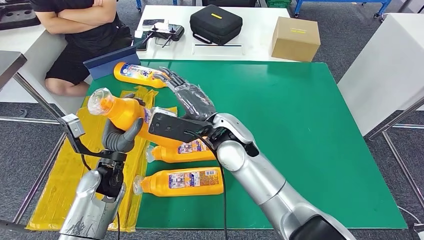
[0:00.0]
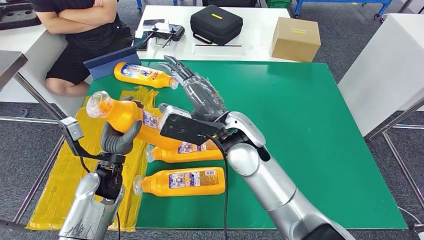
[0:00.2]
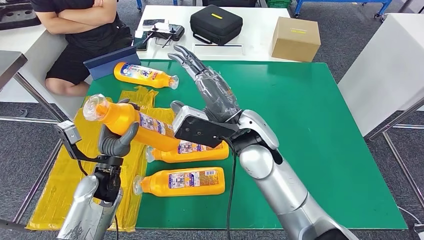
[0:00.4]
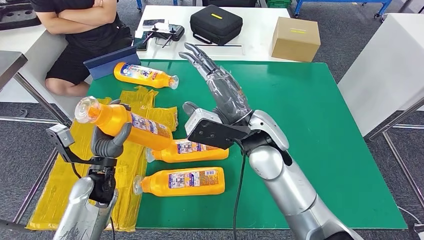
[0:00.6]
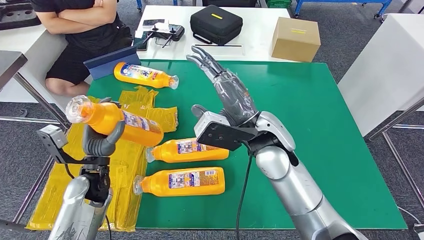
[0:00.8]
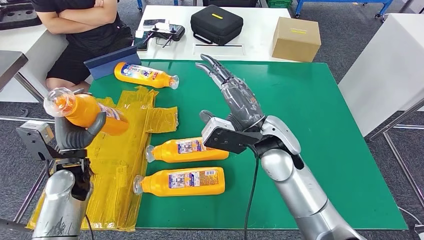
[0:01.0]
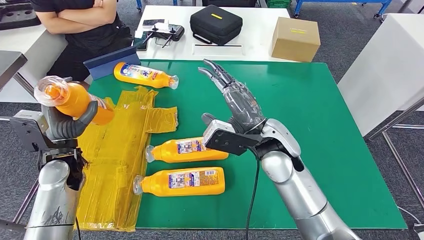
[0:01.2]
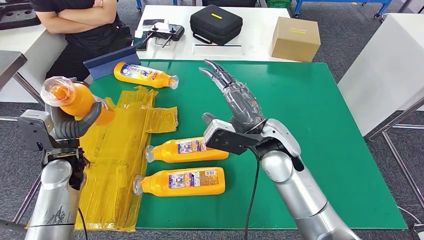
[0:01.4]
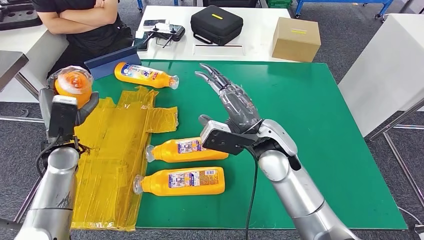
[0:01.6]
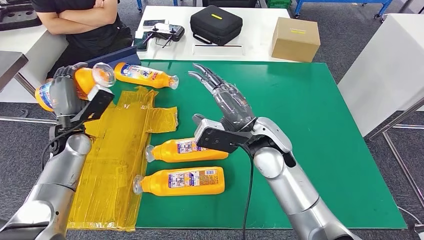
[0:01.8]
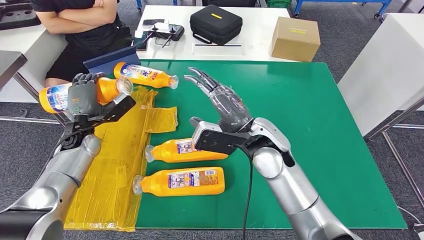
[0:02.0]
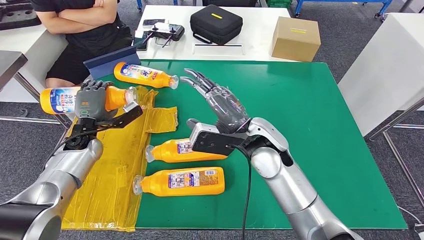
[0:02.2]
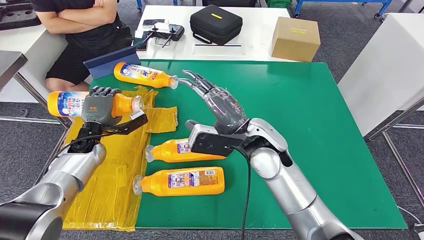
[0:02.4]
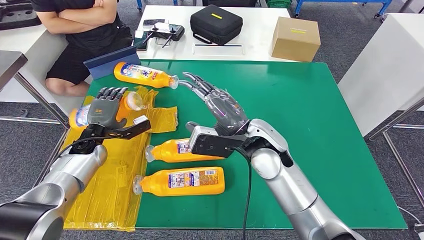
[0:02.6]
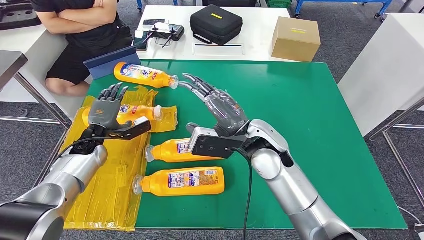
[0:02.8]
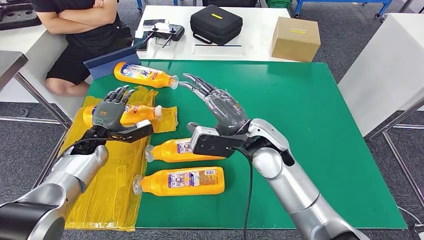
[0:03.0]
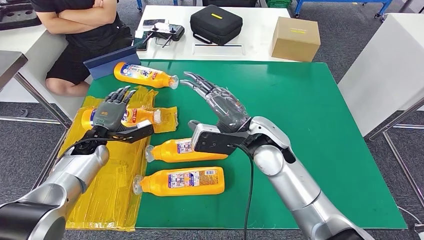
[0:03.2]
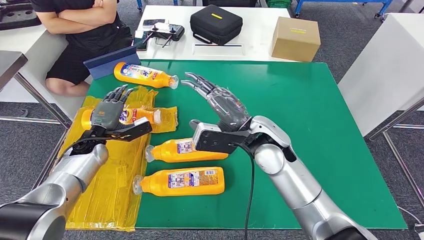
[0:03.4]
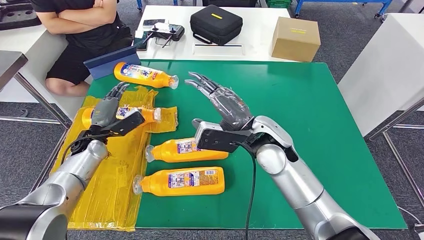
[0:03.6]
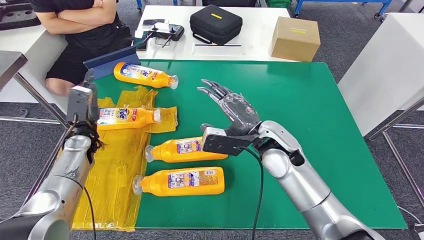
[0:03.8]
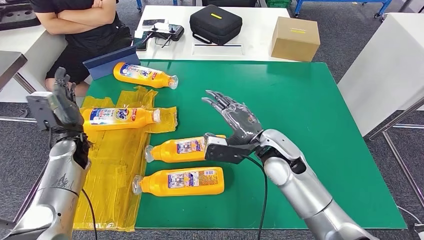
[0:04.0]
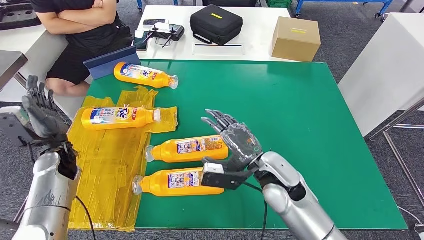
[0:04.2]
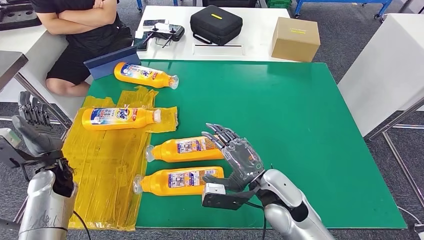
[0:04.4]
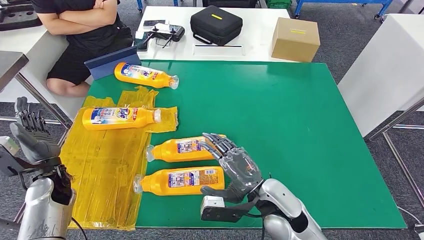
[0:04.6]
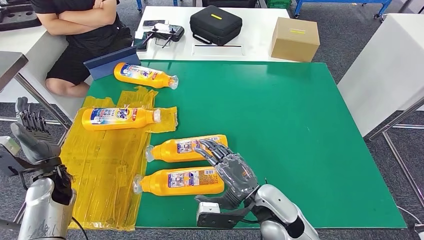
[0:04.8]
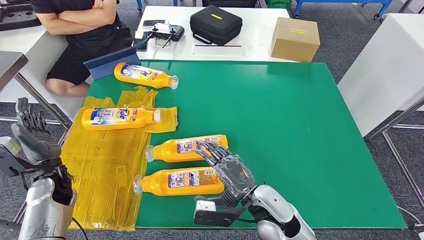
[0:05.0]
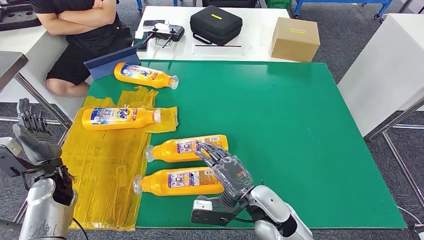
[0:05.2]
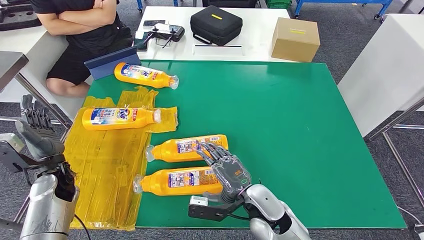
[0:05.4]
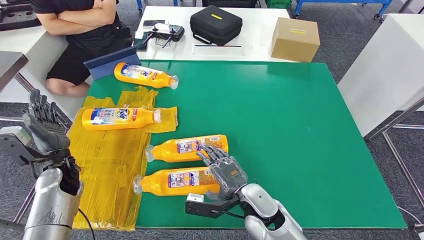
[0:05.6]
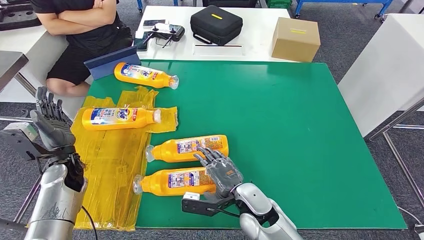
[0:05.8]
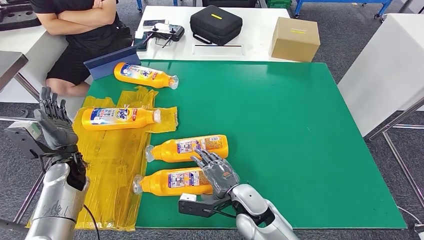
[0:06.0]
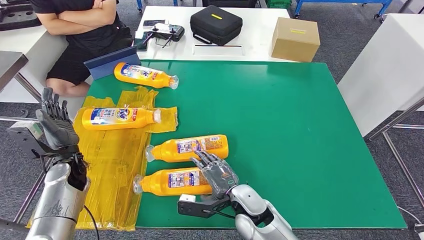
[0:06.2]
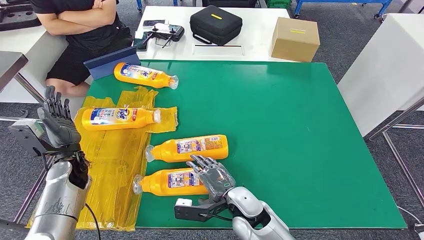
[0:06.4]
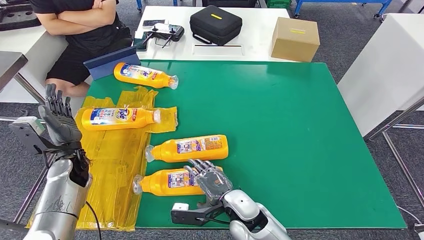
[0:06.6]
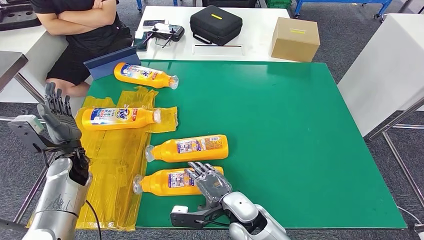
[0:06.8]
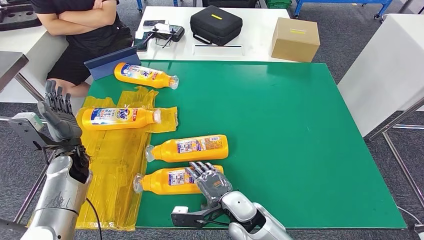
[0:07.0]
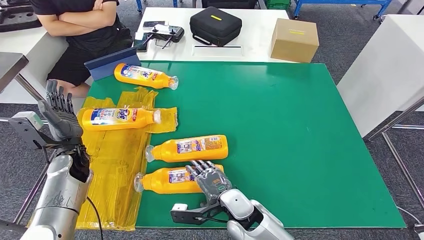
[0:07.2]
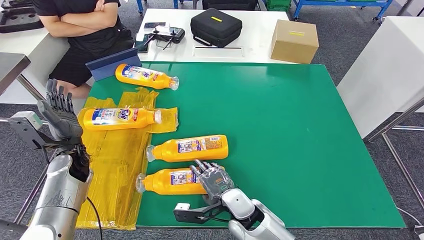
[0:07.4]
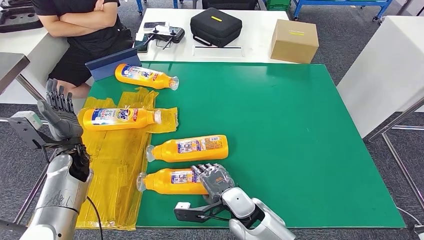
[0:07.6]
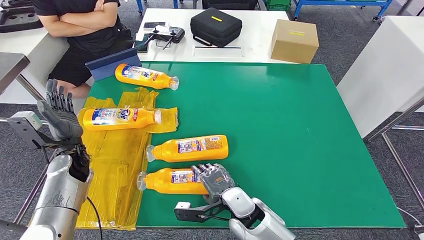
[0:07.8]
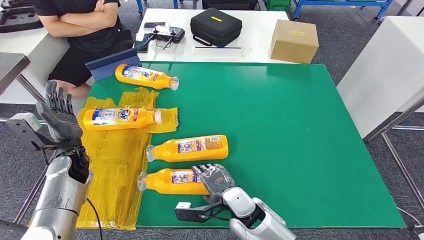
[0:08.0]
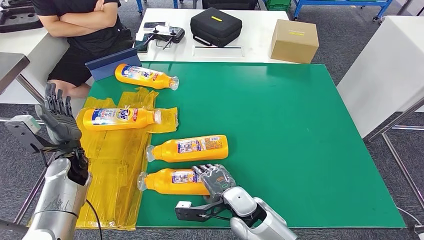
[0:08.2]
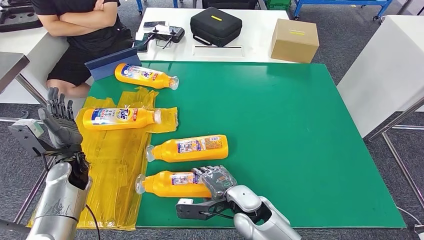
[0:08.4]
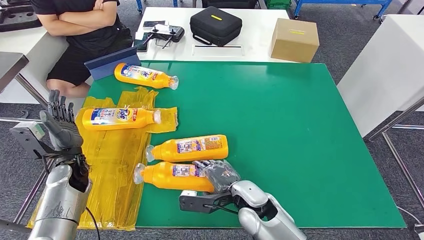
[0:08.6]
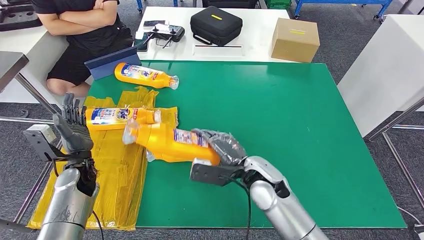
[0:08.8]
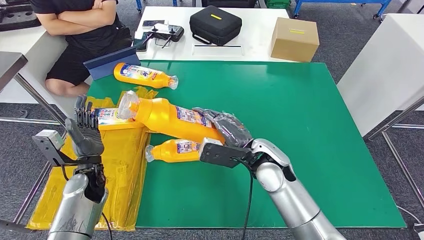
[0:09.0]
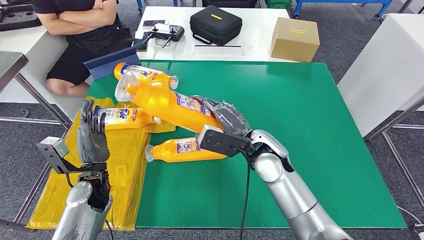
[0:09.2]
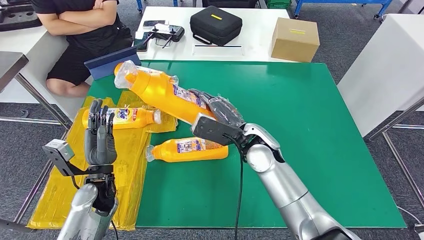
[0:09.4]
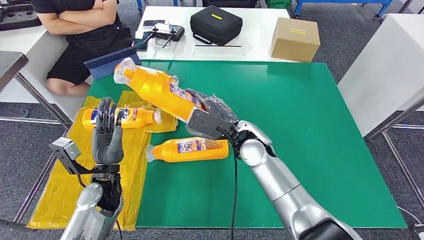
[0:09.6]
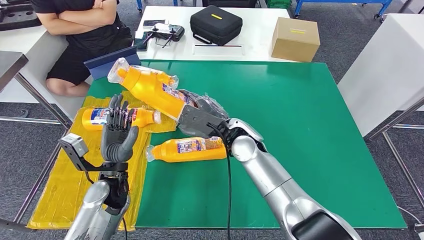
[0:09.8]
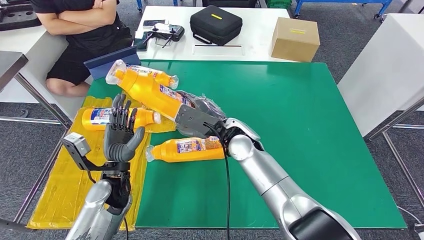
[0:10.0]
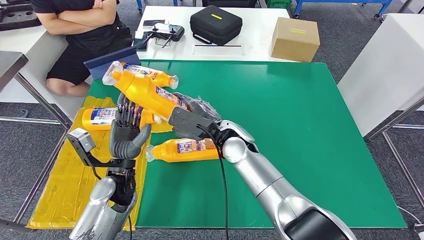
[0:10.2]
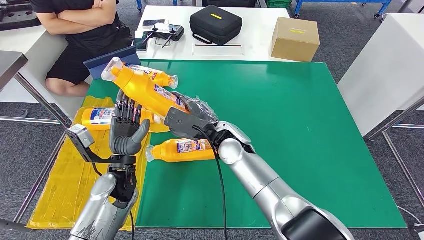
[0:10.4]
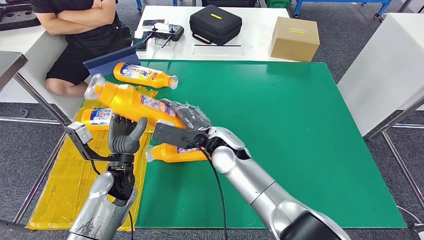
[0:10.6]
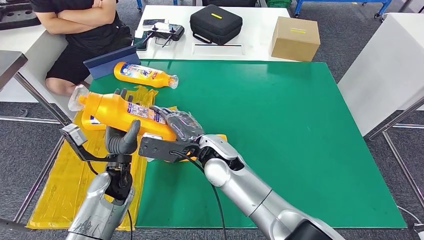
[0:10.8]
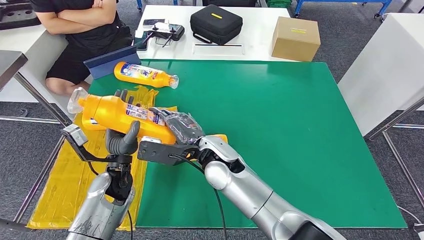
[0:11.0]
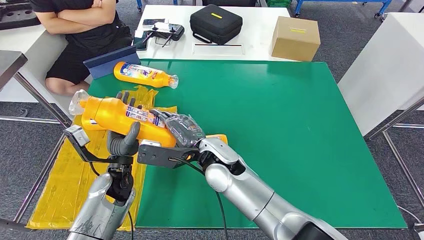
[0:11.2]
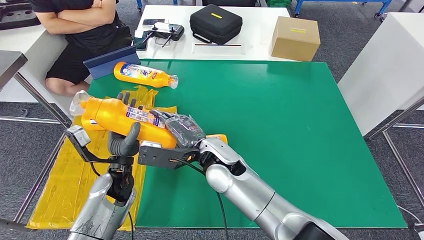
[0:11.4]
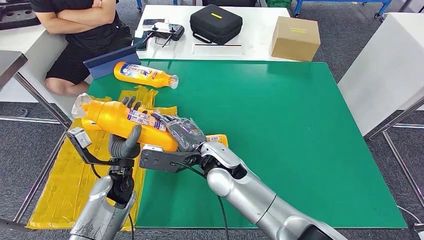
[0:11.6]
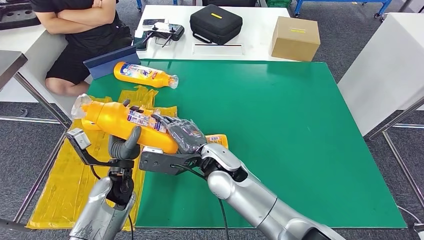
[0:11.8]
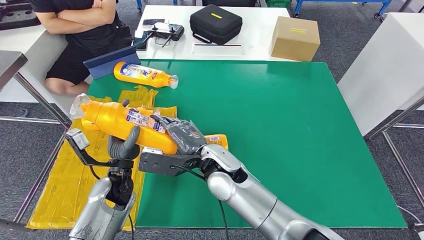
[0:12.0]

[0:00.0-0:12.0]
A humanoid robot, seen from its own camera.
Step, 0:00.0 to 0:04.6: Flip the bottle to face forward.
0:01.6 to 0:03.0: The left hand moves downward and forward, about 10 cm.
0:04.4 to 0:06.0: The right hand moves downward and to the left, approximately 10 cm.
0:10.4 to 0:12.0: The right hand heads backward, covering about 5 cm.

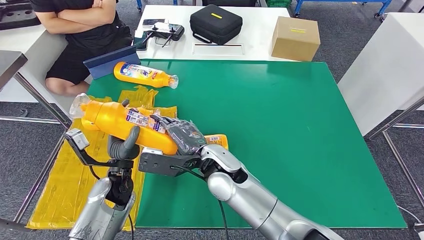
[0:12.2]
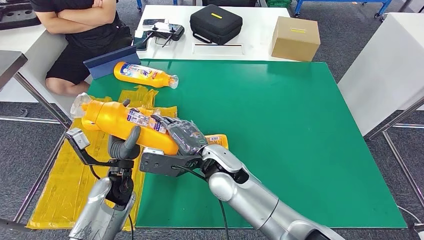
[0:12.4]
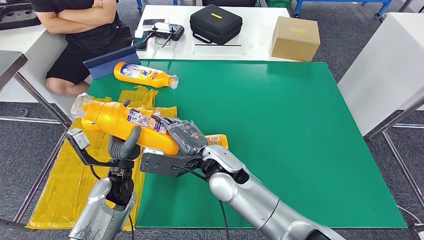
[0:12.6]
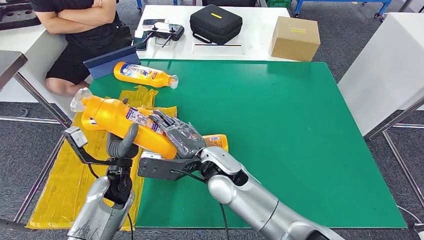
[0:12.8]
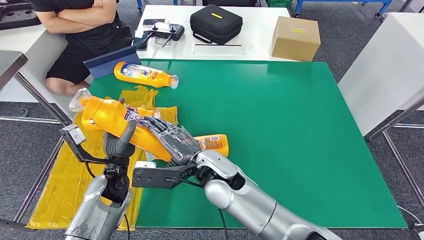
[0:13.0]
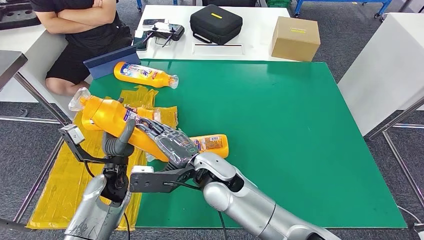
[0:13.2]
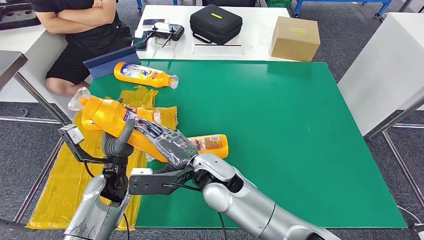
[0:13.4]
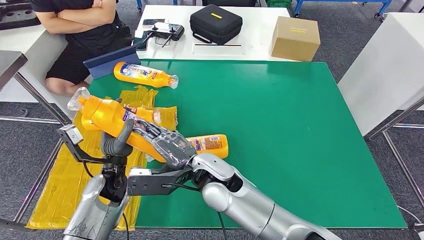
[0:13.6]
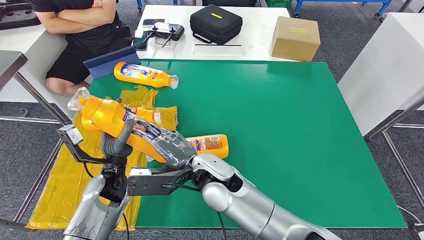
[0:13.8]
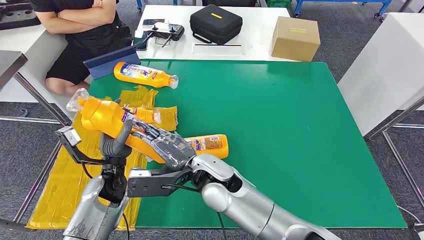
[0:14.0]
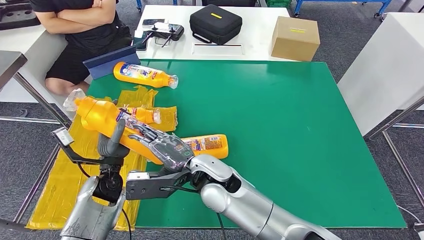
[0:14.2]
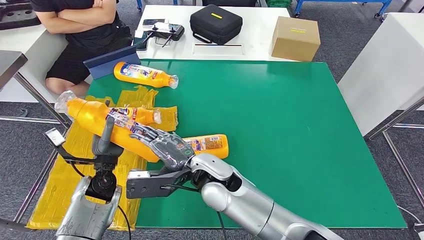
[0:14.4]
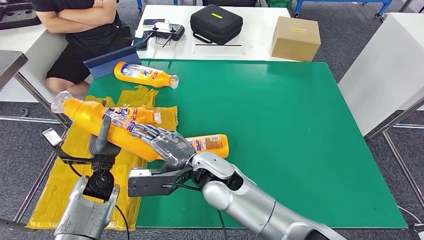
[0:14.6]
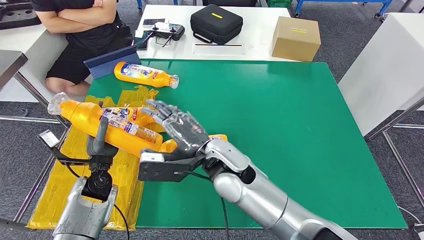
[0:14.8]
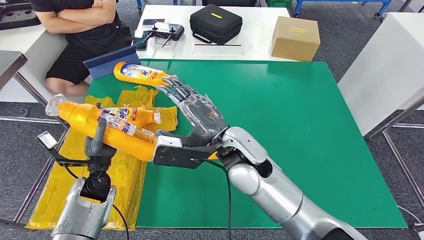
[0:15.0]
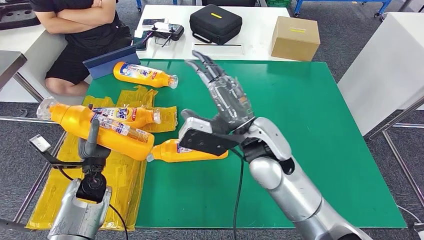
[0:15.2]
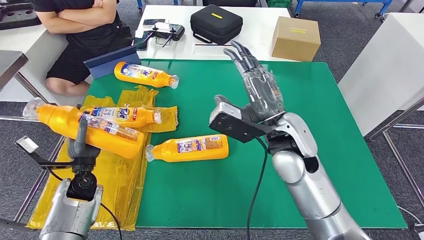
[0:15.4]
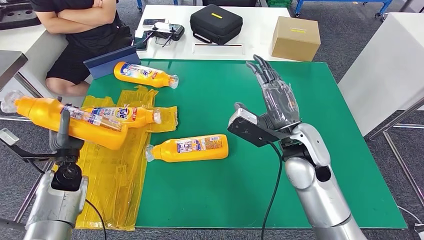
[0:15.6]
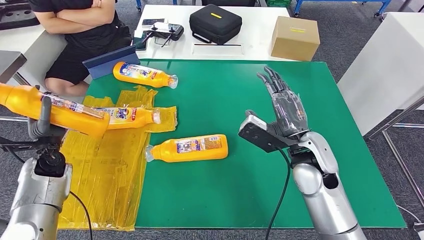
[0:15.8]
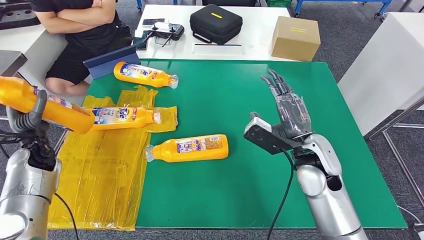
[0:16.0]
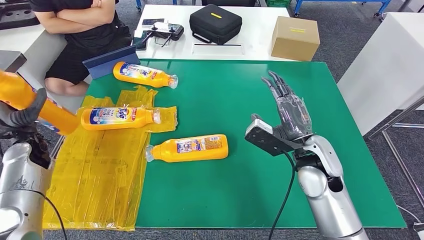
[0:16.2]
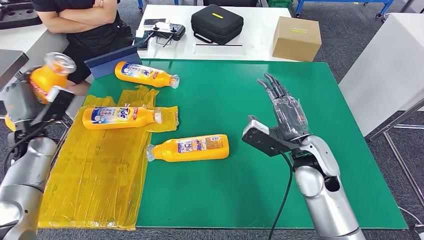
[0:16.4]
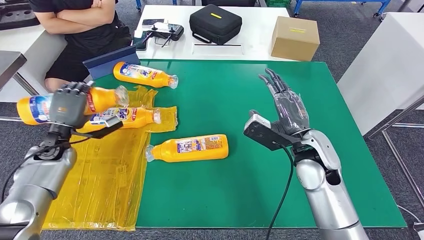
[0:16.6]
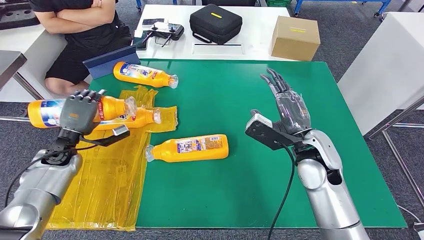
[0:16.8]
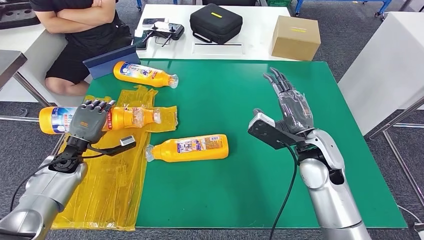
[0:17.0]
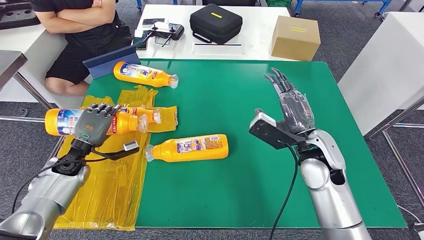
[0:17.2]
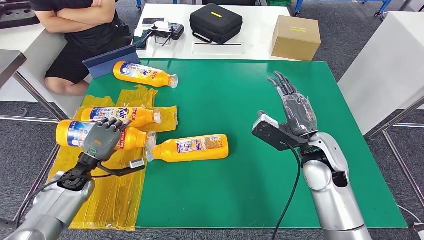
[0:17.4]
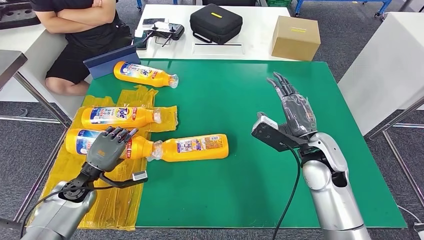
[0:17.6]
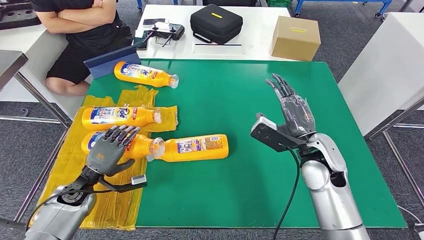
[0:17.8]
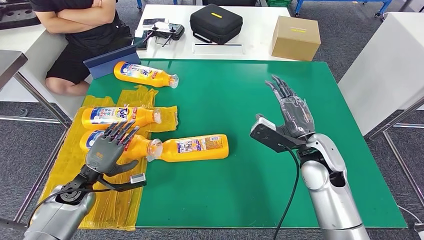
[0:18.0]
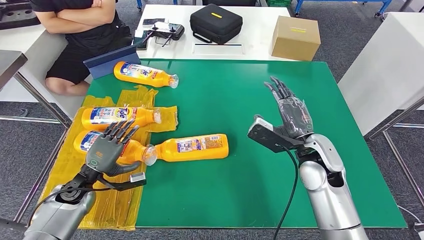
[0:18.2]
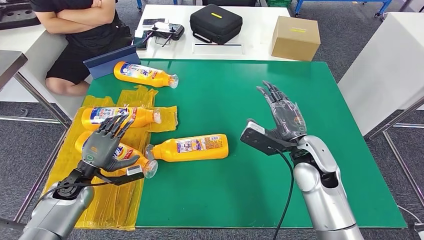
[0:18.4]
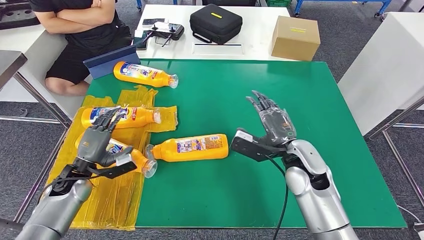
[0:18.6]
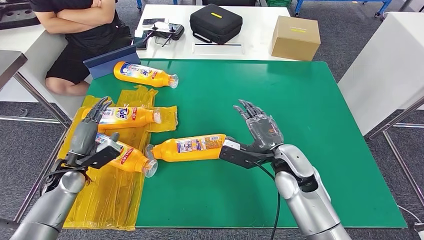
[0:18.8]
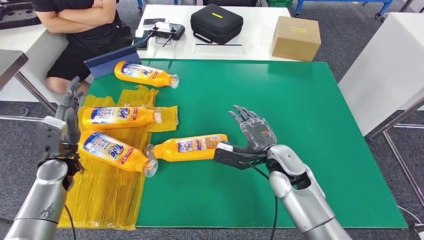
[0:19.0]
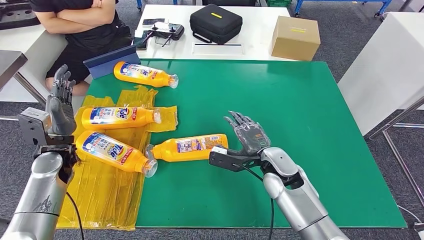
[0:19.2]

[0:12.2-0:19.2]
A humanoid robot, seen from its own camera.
Step, 0:13.4 to 0:18.2: Flip the bottle to face forward.
0:12.2 to 0:13.6: The hands make only small movements.
